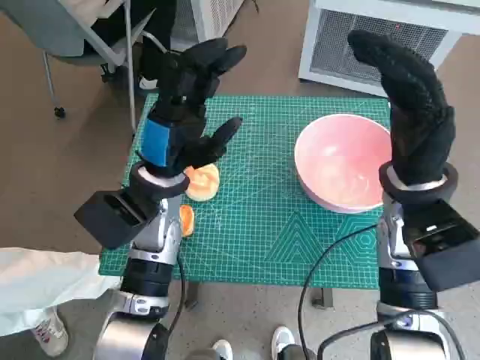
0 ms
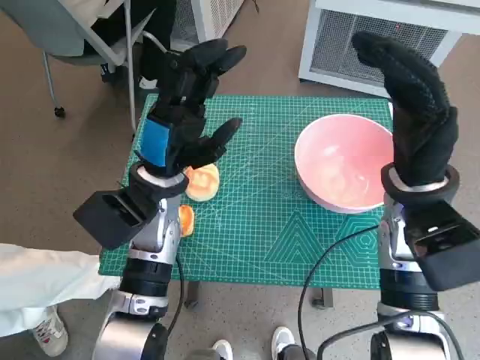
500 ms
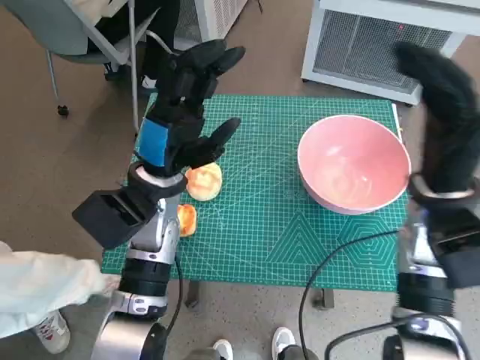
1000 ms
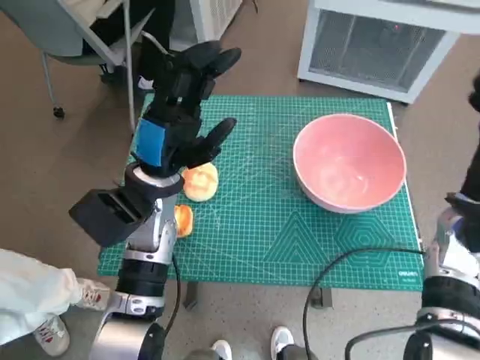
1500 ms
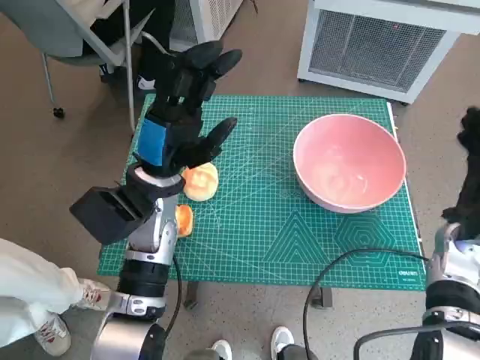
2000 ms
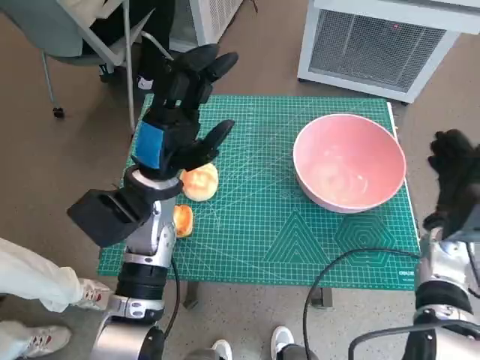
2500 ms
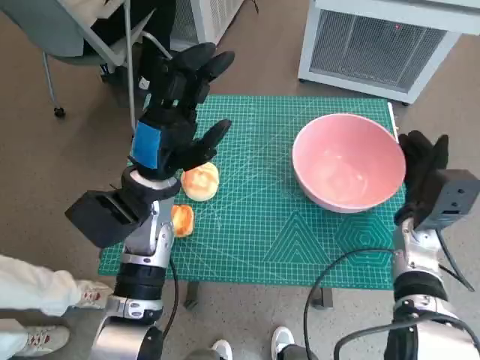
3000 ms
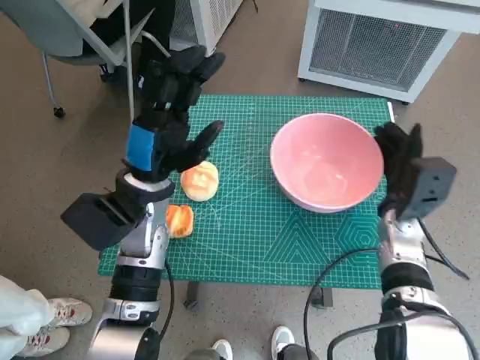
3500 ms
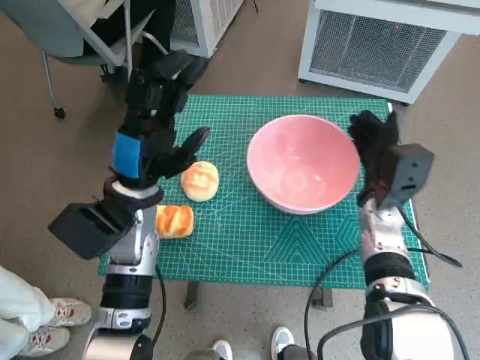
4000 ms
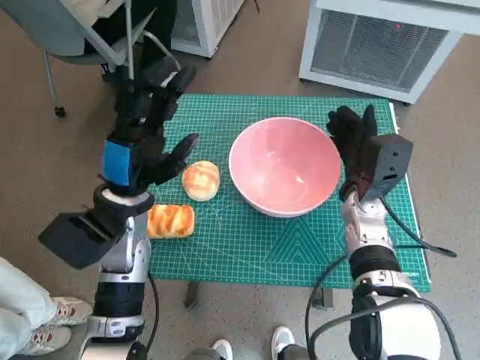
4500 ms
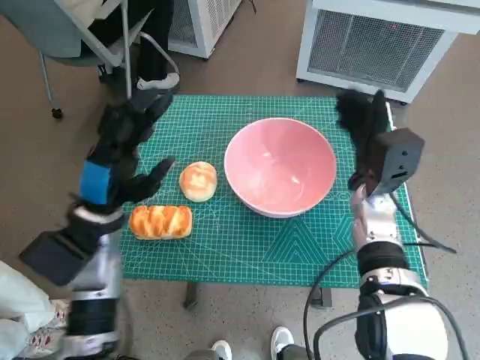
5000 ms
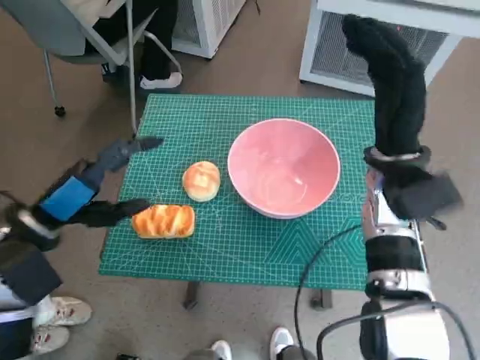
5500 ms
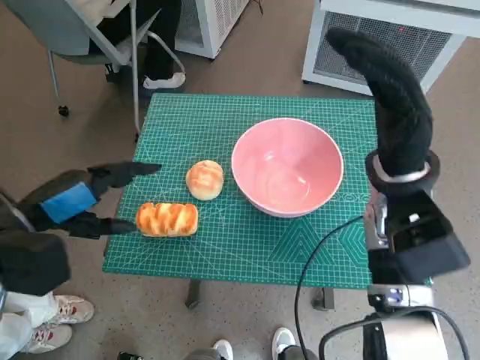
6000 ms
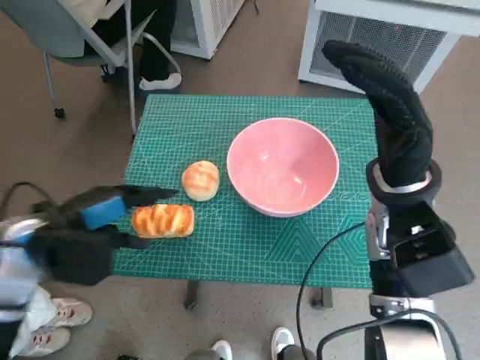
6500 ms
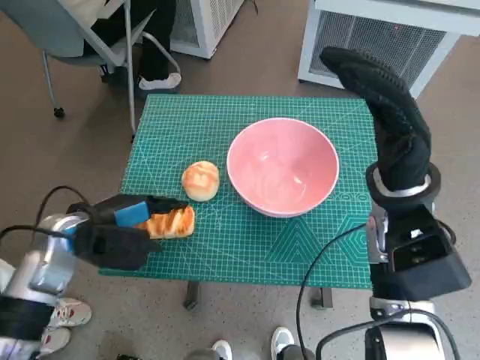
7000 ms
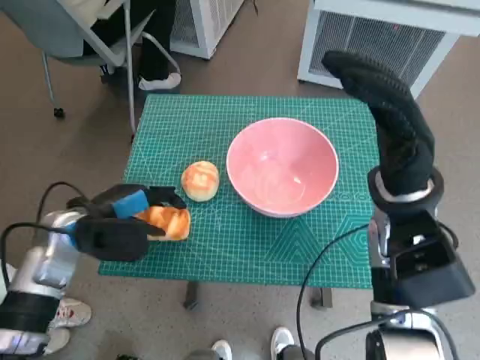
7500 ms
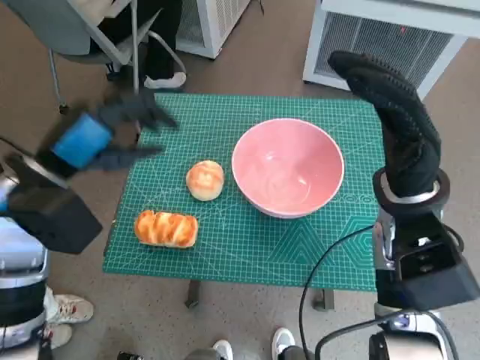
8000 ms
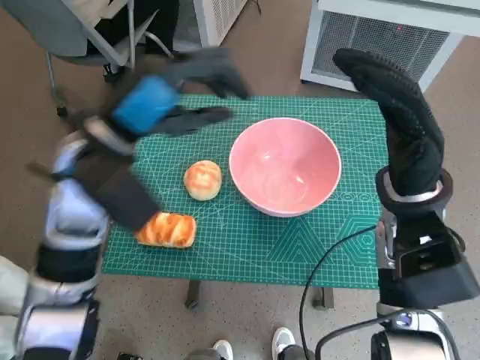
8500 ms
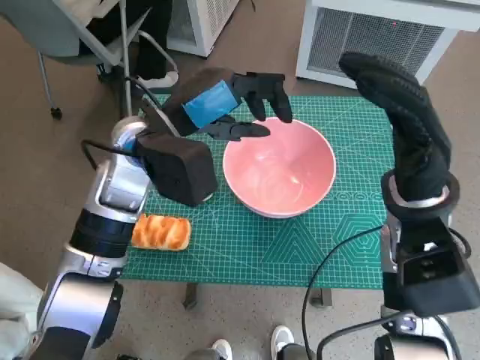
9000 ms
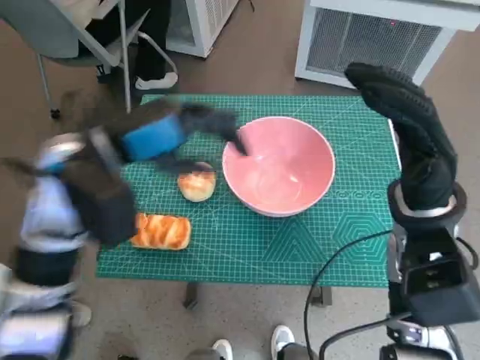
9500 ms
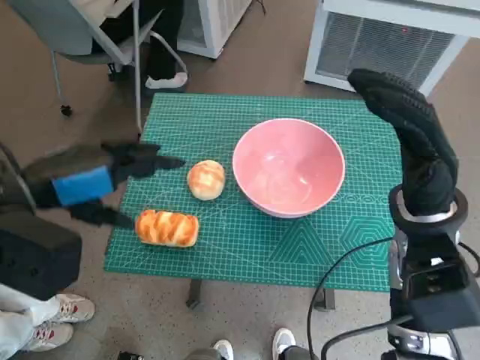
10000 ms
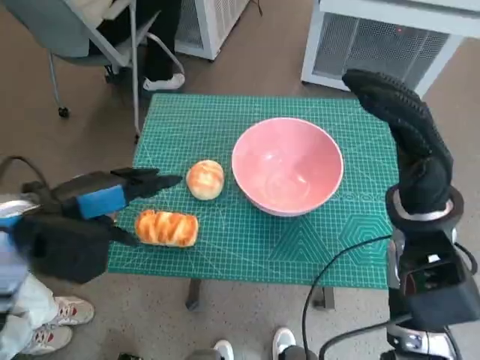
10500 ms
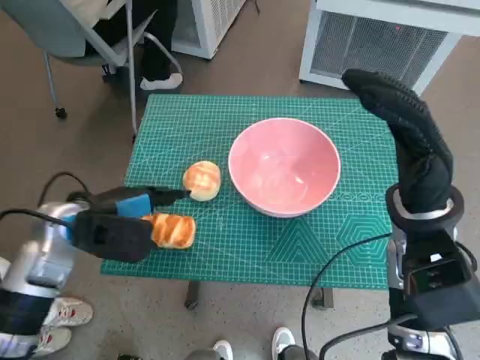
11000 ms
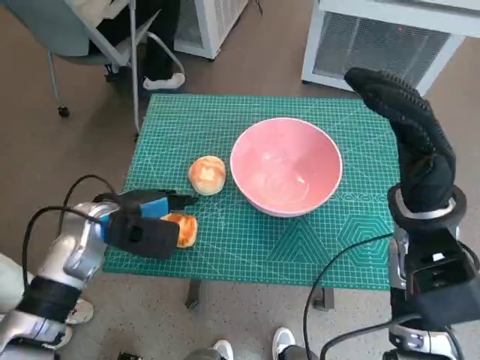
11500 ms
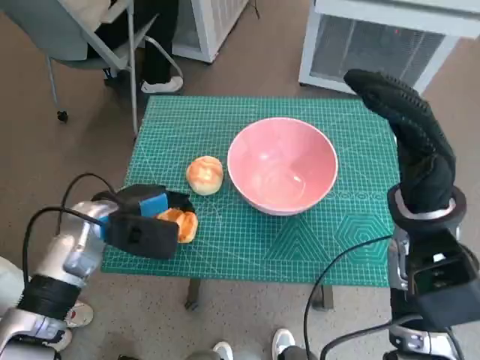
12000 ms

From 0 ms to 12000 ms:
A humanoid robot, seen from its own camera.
Task of the whole recording: Push the bowl to the center of the table and put the bread into the bowl.
Step, from 0 ms to 4500 ms: Move the pink bowl to the center of table with right hand.
Step, from 5000 ms to 11500 ms: Grasp the long bread with left hand.
From 2000 ms to 4000 ms: The right hand is displaced to the left by roughly 10 cm.
From 4000 ms to 6000 ms: The left hand heads to the left and backward, covering about 15 cm; the right hand goes about 10 cm upward.
From 6000 ms to 8000 ms: The left hand reaches approximately 5 cm downward, then returns.
From 8000 ms to 10000 ms: The left hand reaches some 10 cm to the right, then returns.
From 10000 ms to 12000 ms: The left hand is displaced downward by some 15 cm.

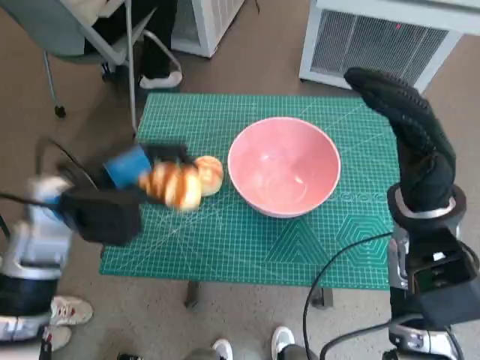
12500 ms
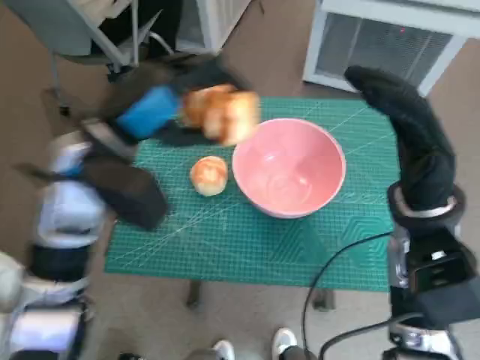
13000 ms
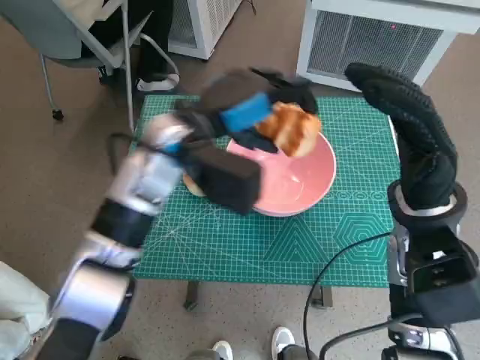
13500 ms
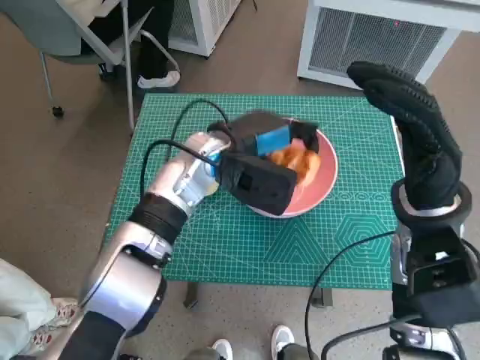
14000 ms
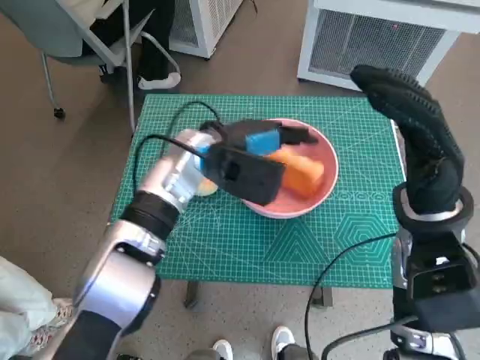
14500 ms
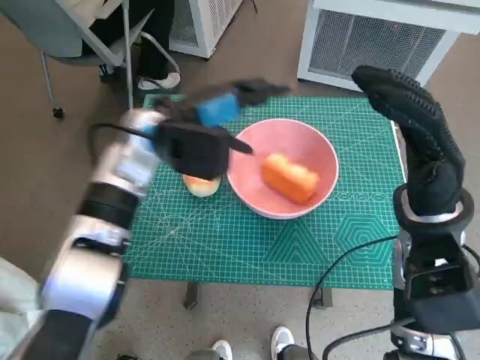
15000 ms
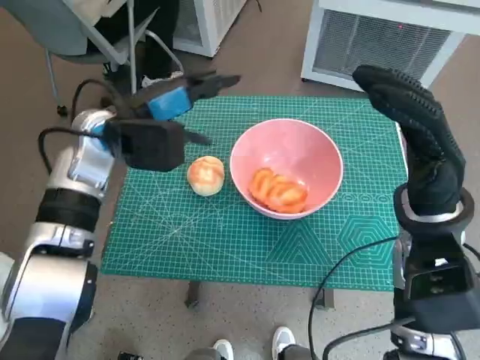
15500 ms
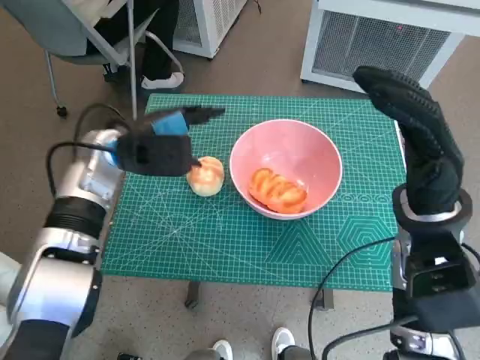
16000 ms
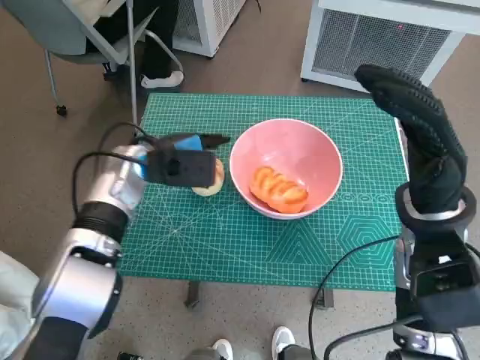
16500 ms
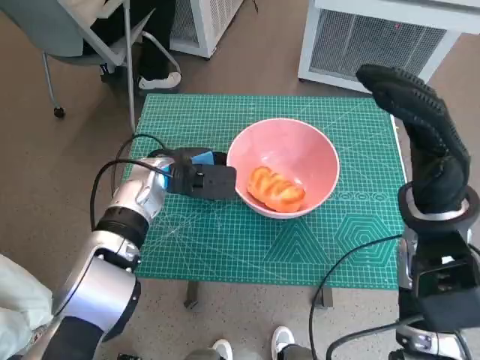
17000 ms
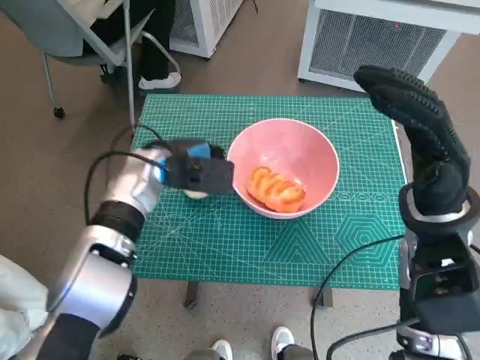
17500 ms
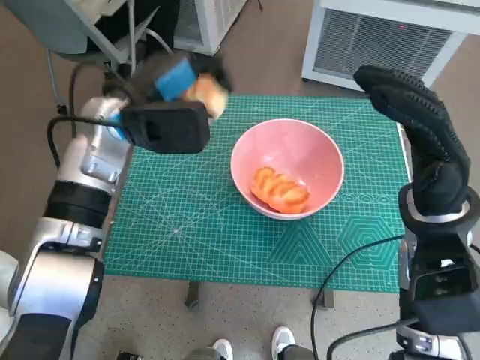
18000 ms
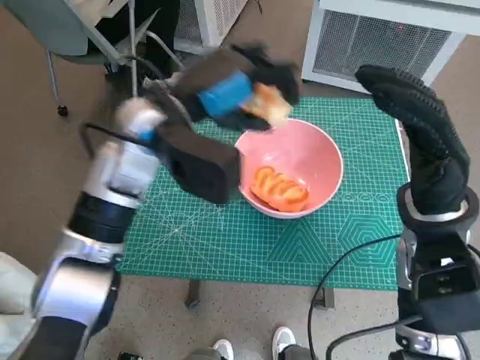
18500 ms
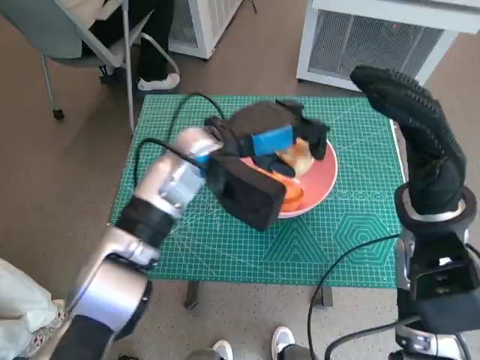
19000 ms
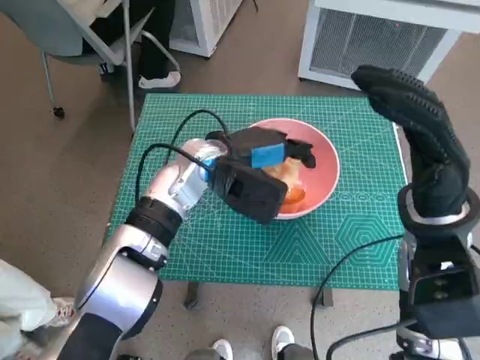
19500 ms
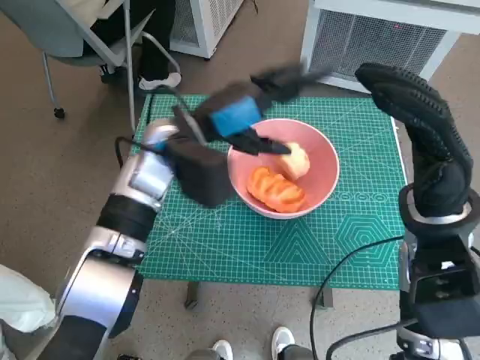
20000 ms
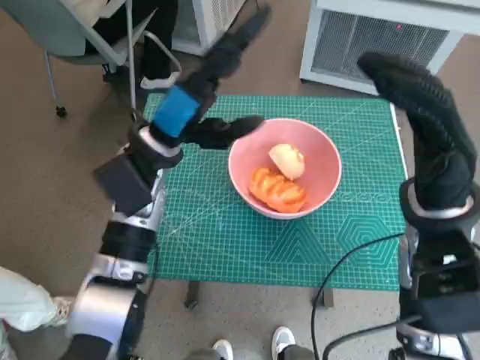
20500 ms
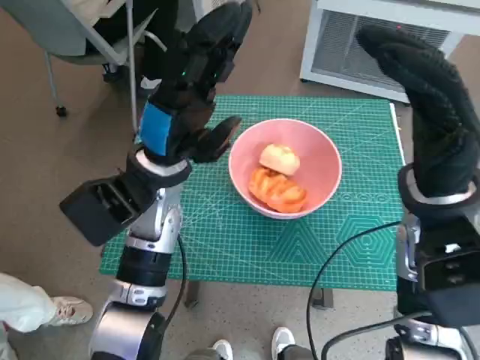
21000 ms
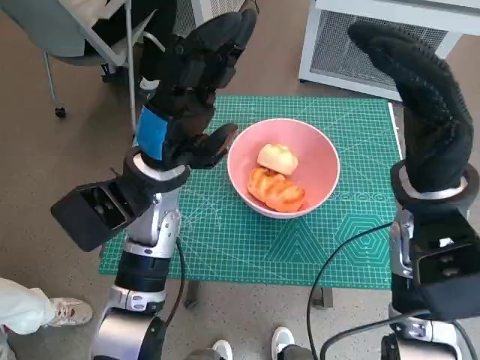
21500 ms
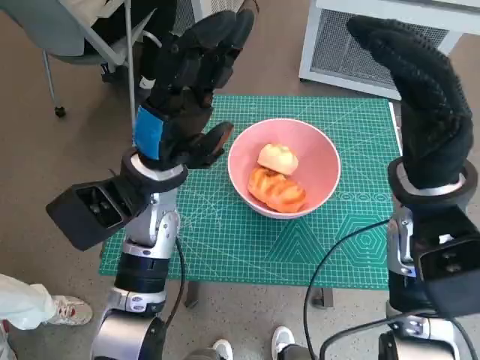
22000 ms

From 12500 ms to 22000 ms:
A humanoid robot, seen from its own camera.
Task of the whole recording: Push the bowl to the center of the table and put the bread into the bowl.
Step, from 12500 ms to 14500 ms: Place the long bread in pink bowl with left hand.
Step, from 15000 ms to 17000 ms: Grasp the round bread with left hand.
Step, from 17500 ms to 19500 ms: Place the round bread in pink bowl with left hand.
From 12500 ms to 14500 ms: The left hand heads to the right and forward, covering some 20 cm.
From 14500 ms to 16500 ms: The left hand shifts roughly 10 cm to the left.
From 16500 ms to 18000 ms: The left hand travels upward by some 10 cm.
From 18000 ms to 20000 ms: The left hand goes about 5 cm to the right.
From 20000 ms to 22000 ms: The left hand ends up roughly 5 cm from where it was.

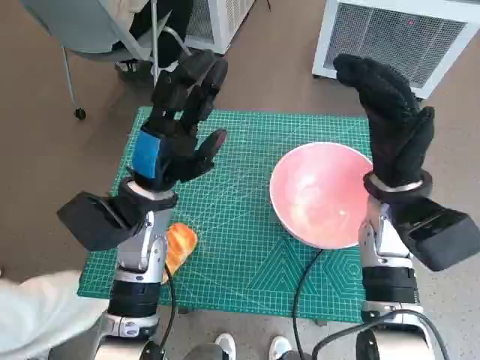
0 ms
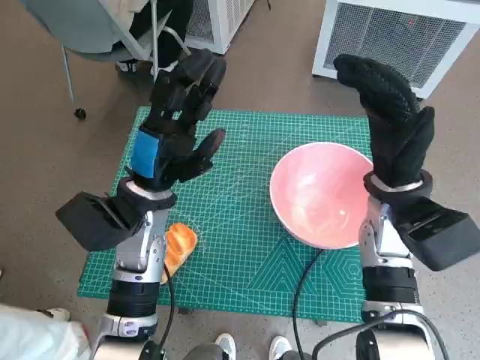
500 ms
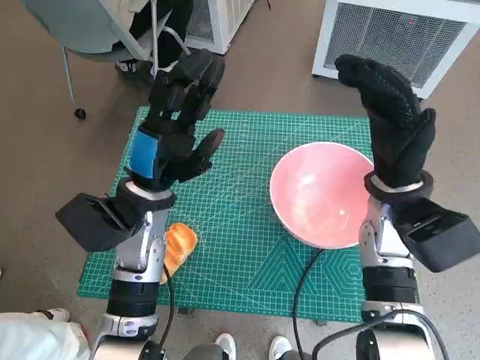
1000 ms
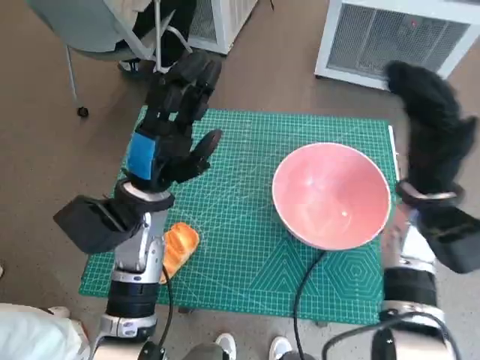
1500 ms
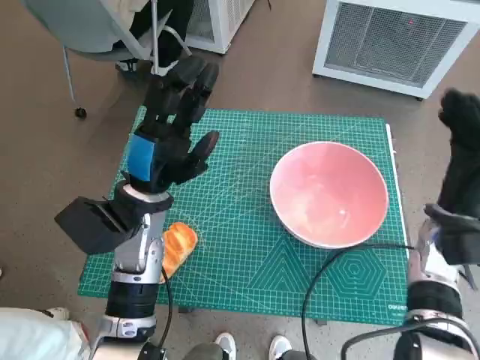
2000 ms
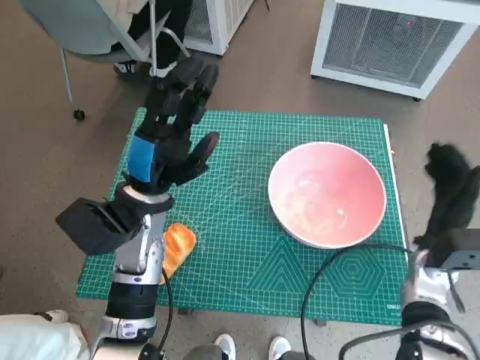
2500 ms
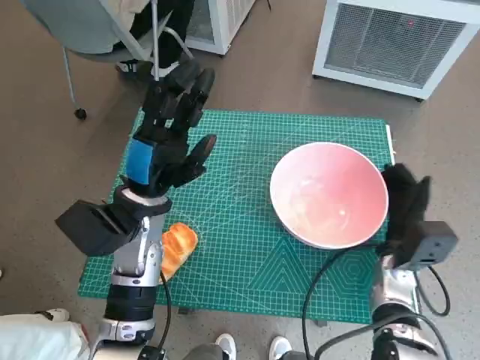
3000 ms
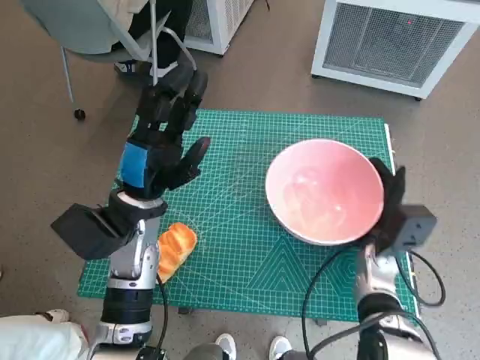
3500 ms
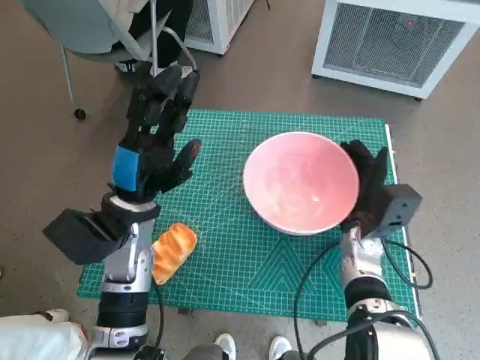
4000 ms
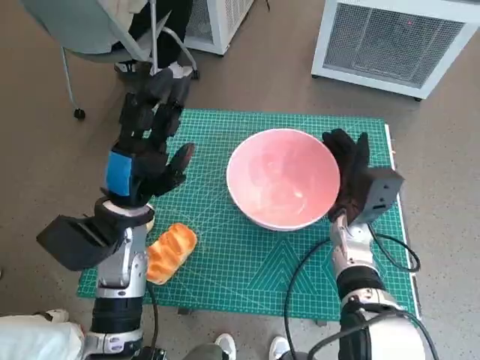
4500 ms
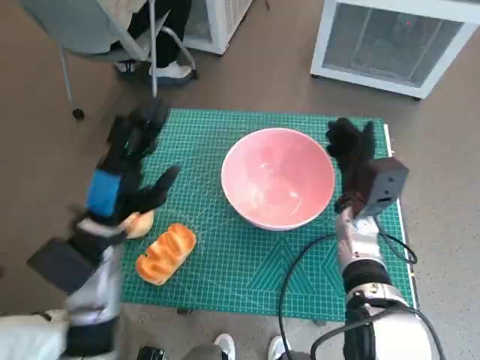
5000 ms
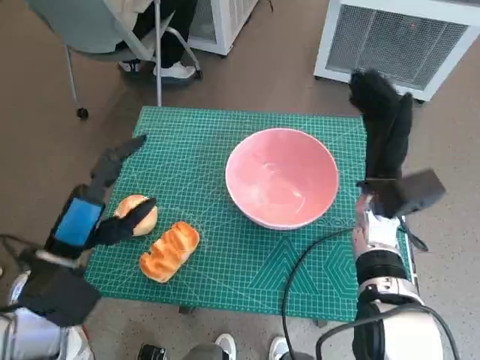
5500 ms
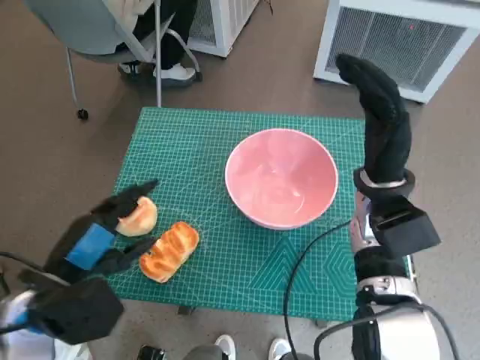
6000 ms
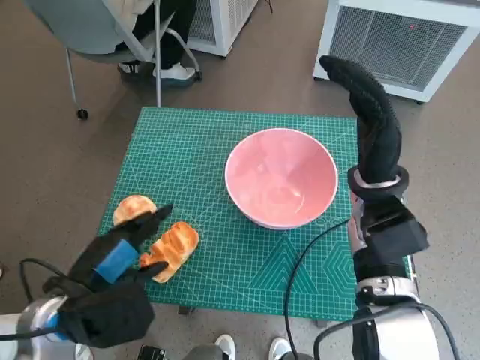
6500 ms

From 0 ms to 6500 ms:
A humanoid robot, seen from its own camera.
Task of the whole recording: Push the bowl to the center of the table and put the bread into the bowl.
Step, from 0 ms to 5500 ms: Move the pink bowl to the center of table with right hand.
From 2000 ms to 4500 ms: The right hand heads to the left and downward, covering about 10 cm.
From 4500 ms to 6500 ms: The left hand travels backward by approximately 10 cm; the right hand is displaced upward by approximately 10 cm.
